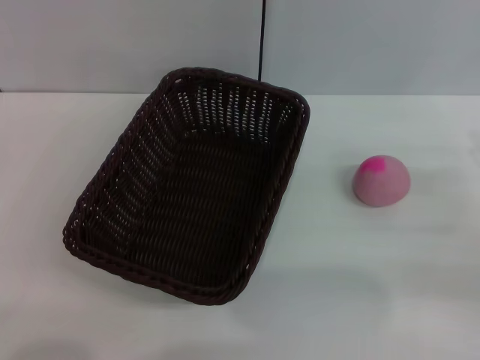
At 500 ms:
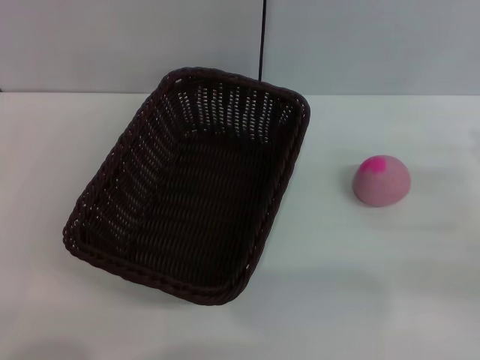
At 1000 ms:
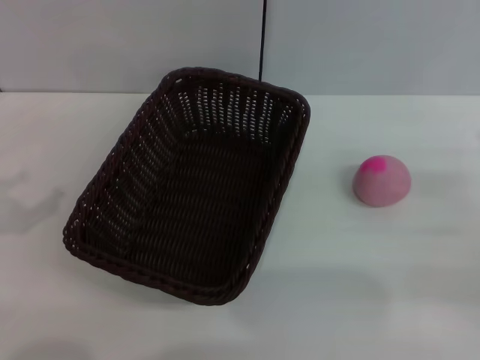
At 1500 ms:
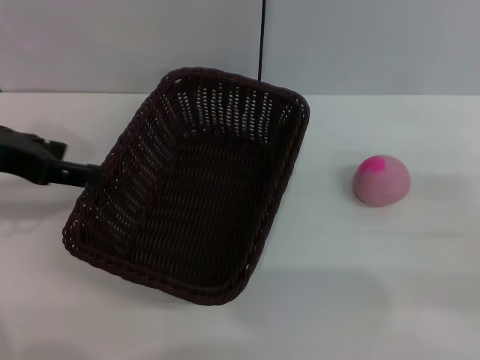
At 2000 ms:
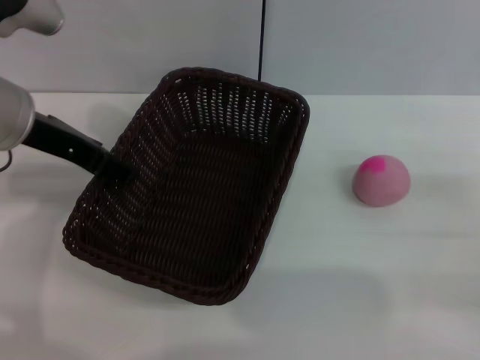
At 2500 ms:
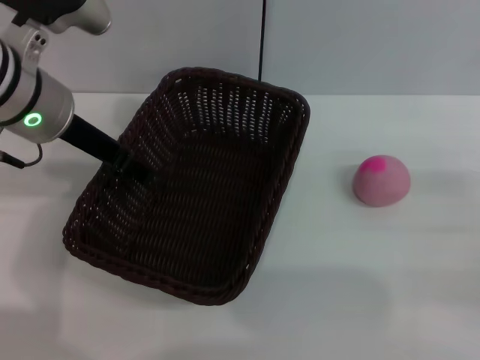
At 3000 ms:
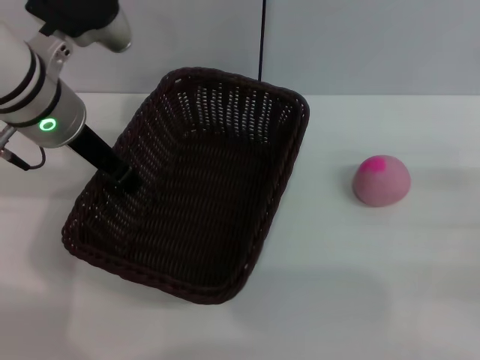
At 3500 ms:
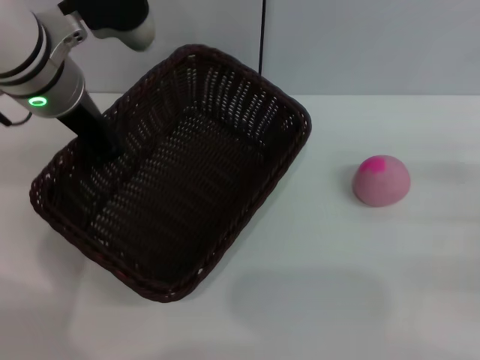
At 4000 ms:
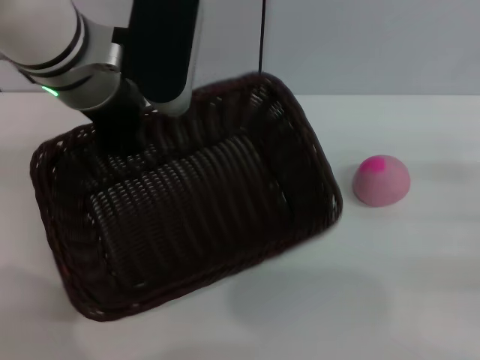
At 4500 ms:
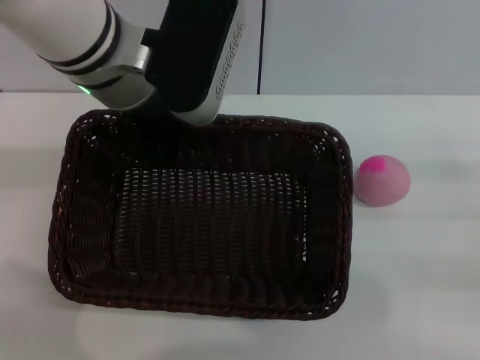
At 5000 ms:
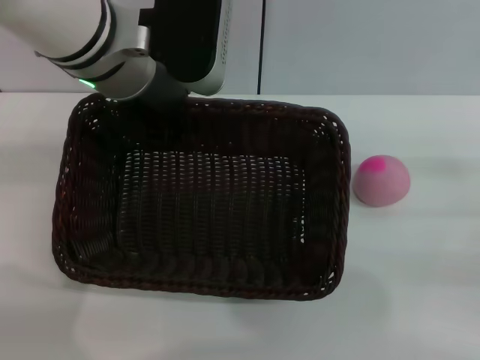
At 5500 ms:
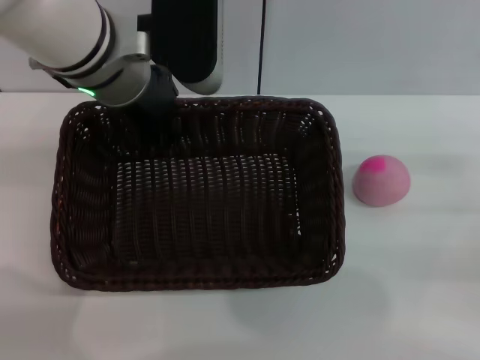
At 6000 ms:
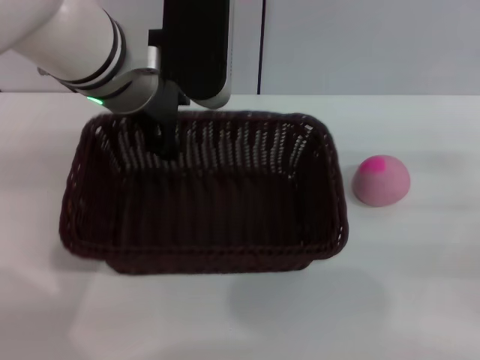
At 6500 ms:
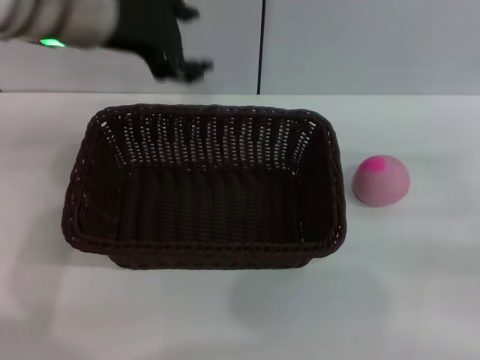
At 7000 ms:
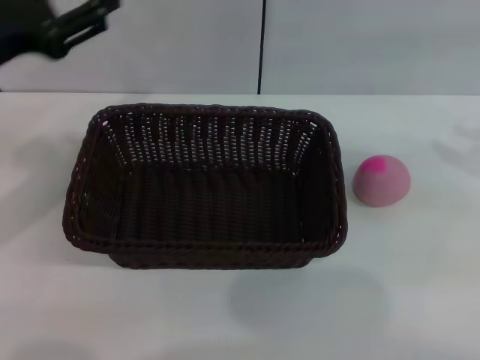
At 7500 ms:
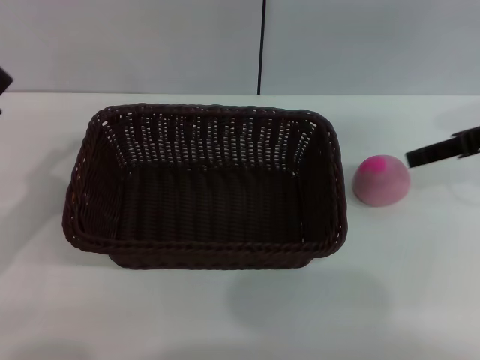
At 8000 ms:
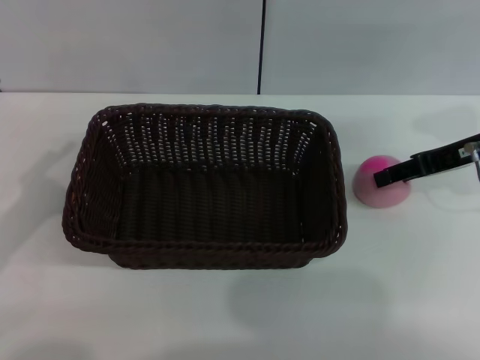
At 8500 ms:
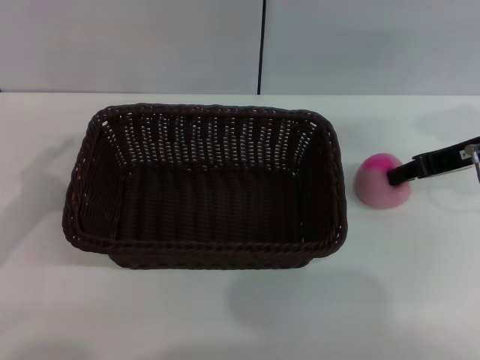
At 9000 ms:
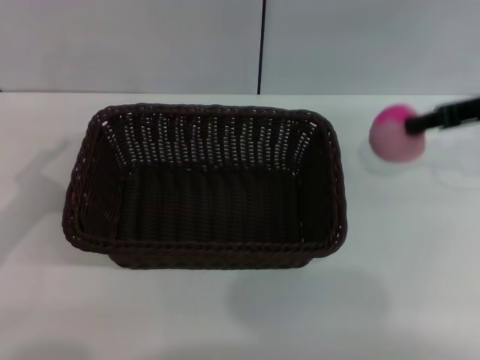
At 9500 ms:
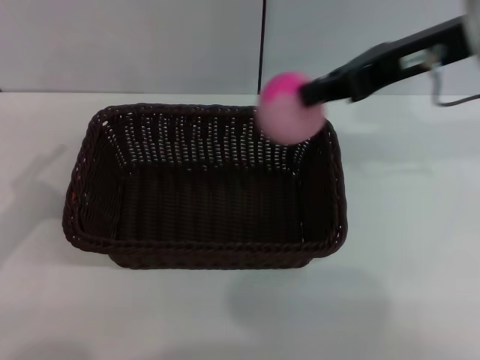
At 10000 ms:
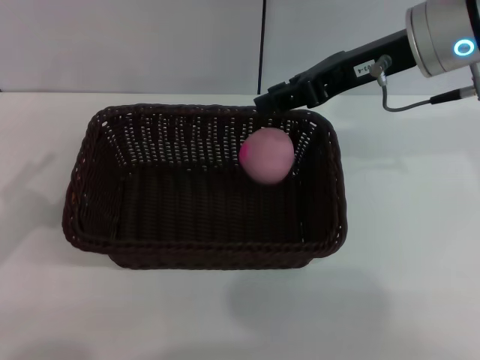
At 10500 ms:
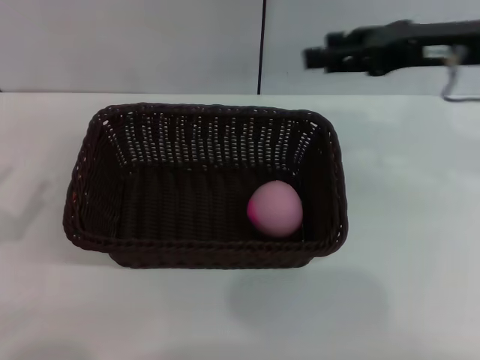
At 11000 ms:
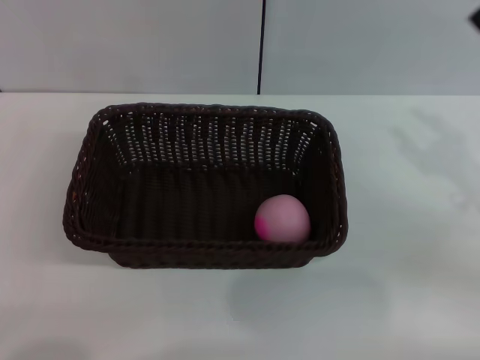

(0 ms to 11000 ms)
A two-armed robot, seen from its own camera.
Step, 0 ms - 3500 ms: Pick up the dark basket with the left gripper.
Step, 4000 ms - 6000 ms: Place the dark basket in the center of view with the right gripper.
Step, 6500 ms - 9000 ms: Pick up the peach with the left gripper.
Step, 9500 ms - 10000 ms: Place the peach into the basket with the left gripper.
0 ms - 2000 ms: The left gripper goes approximately 30 cm forward, upward and to the right.
2000 ms - 3500 ms: The left gripper heads to the right, covering some 5 cm, and closes up.
5500 ms - 7500 ms: The right gripper goes about 15 cm upward, forward and to the left; the left gripper goes about 30 cm to the left, backward and downward, and opens up.
7500 ms - 9000 ms: The right gripper closes.
9000 ms - 11000 ms: The two grippers go some 10 cm backward and downward. The right gripper goes to the left and returns, approximately 10 cm each way, and opens its fingers.

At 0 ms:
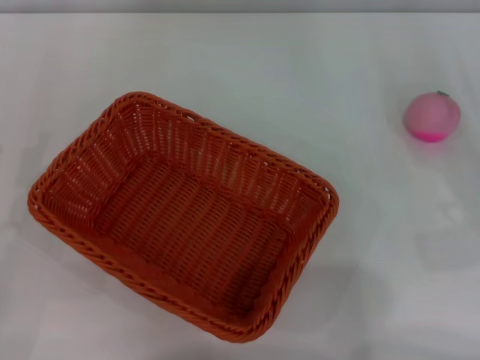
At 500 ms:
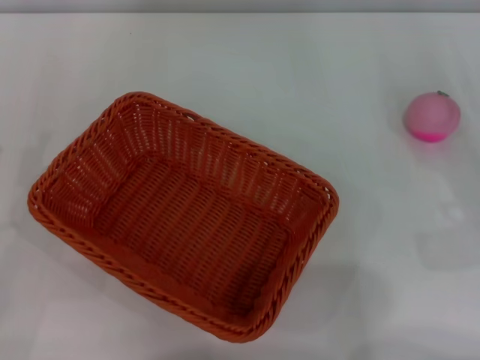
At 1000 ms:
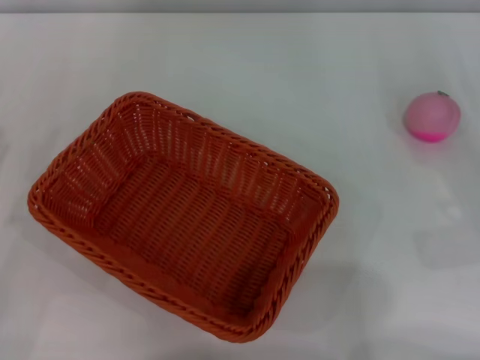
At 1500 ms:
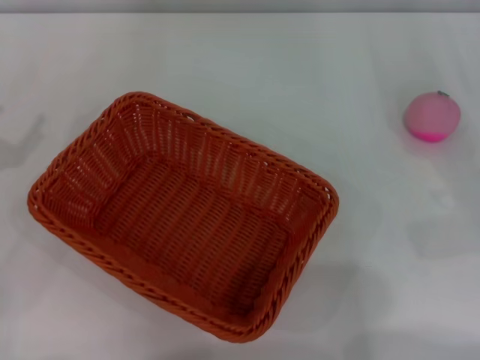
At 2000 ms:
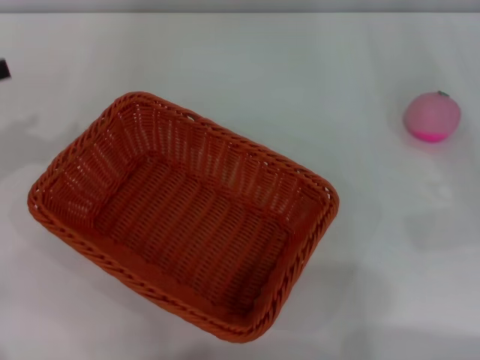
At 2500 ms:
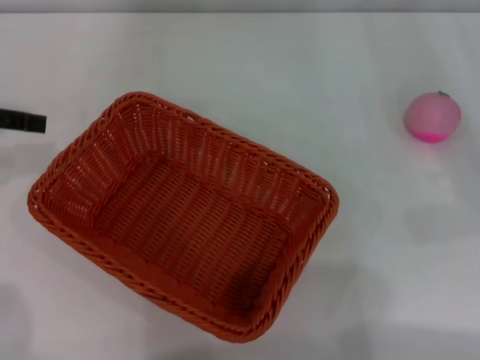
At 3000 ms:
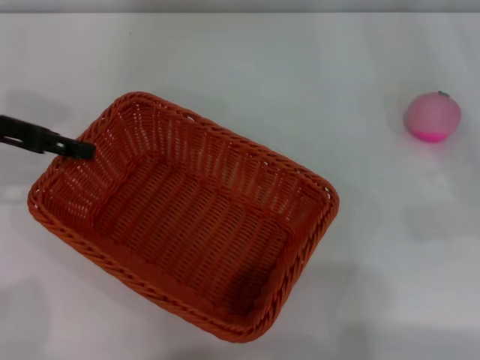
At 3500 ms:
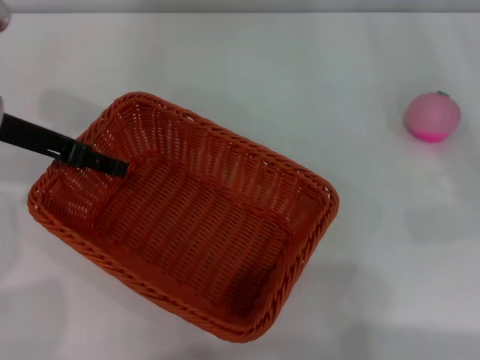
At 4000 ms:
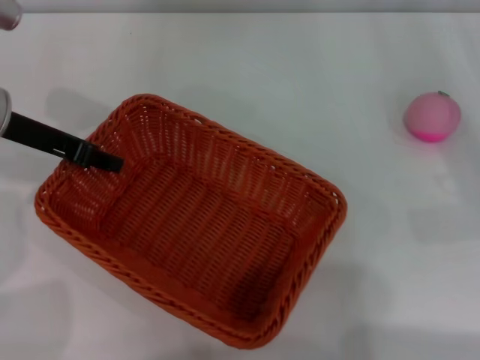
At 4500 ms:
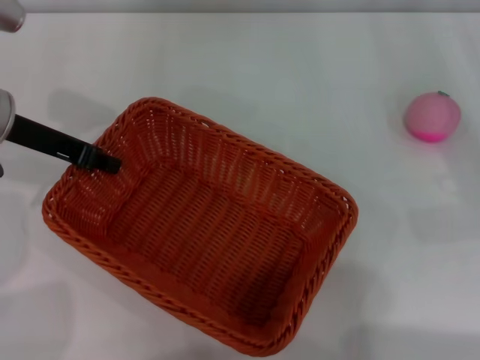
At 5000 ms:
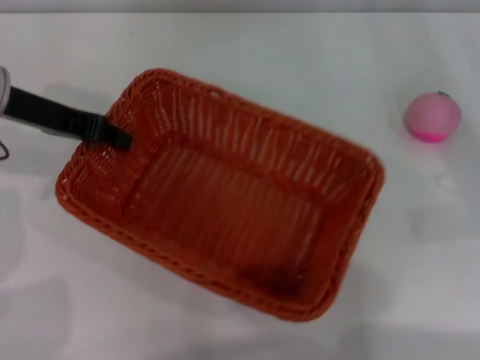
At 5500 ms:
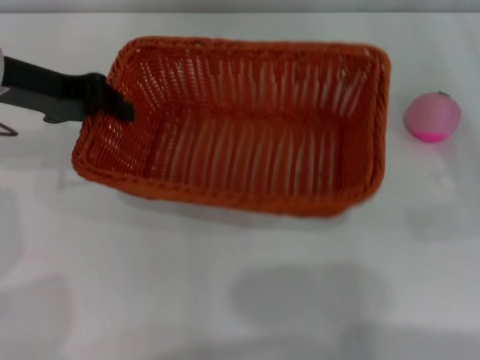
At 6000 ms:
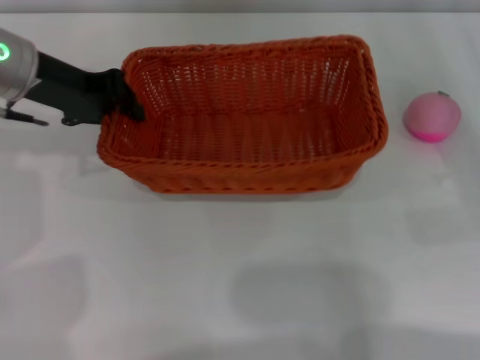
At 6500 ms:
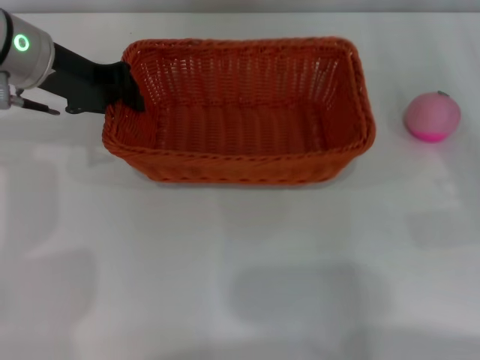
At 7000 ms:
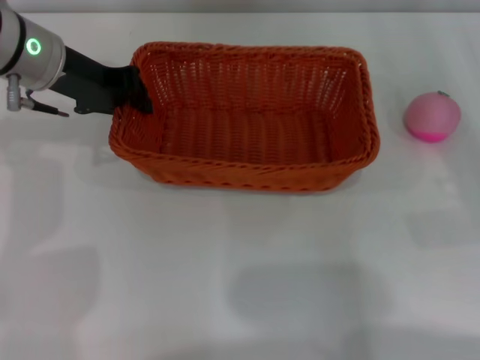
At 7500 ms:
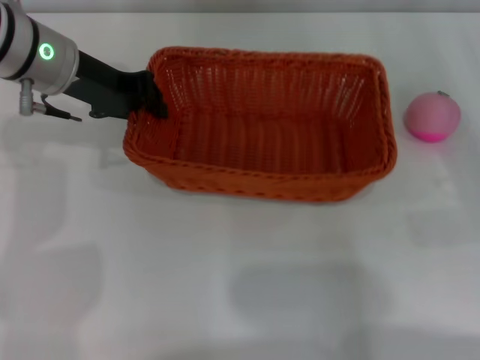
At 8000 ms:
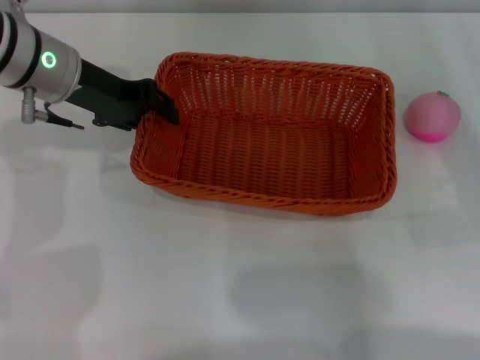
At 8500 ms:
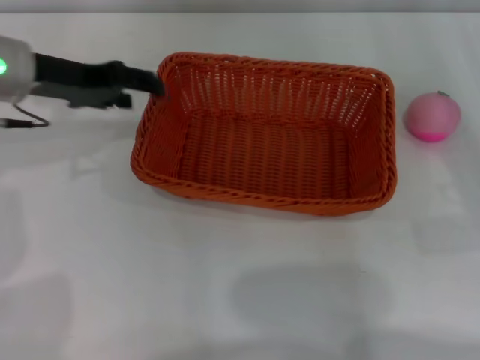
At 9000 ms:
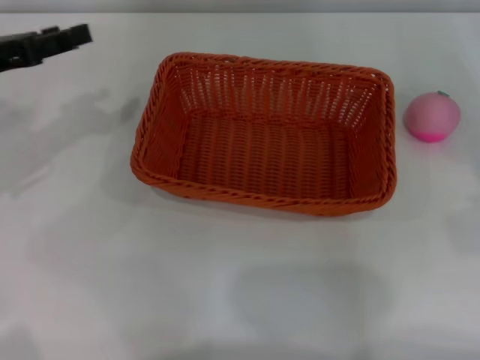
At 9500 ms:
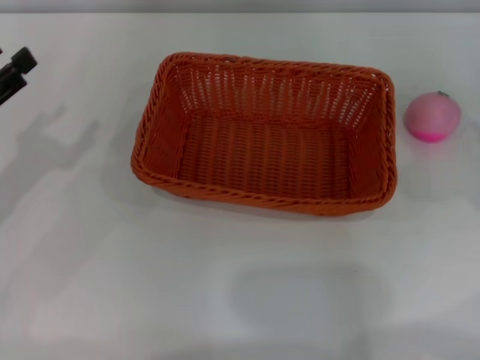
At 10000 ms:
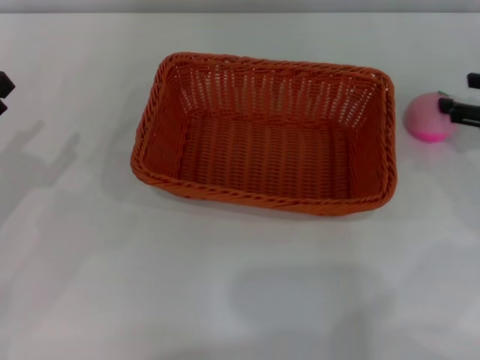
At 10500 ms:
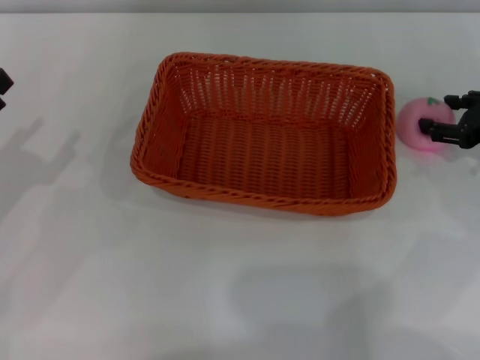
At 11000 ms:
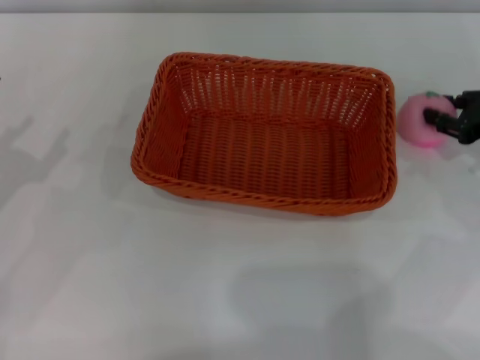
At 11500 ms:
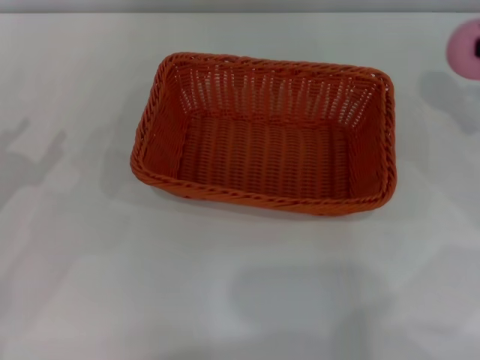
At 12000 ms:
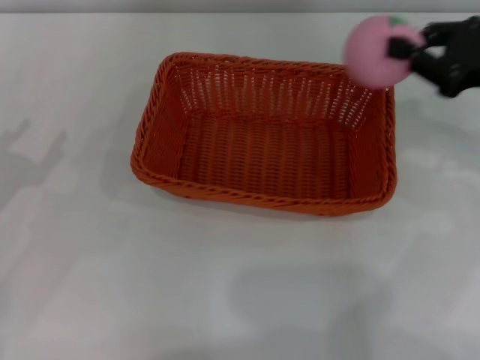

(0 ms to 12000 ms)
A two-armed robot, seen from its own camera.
Step, 0 ms - 5000 ms: Pick up the light basket with the left gripper.
Step, 9000 ms - 11000 ms: Pick up the peach with the left gripper.
2000 ms - 4000 ms: The left gripper moves to the right and forward, roughly 15 cm, and closes up.
4000 ms - 6000 ms: The left gripper closes up.
6000 ms - 8000 ms: There are only small adjustments of the grippers.
8000 ms - 10000 ms: The left gripper goes approximately 25 cm to the left, backward and downward, and opens, while the right gripper goes approximately 10 cm forward.
10000 ms - 12000 ms: The right gripper travels to the left and upward by roughly 10 cm, and closes up.

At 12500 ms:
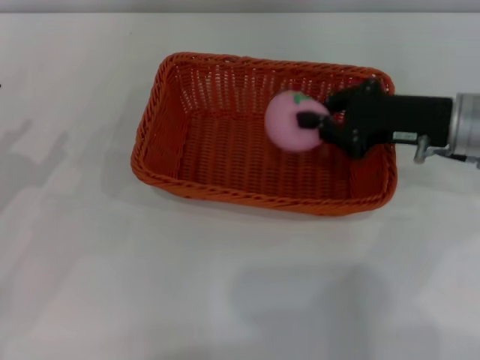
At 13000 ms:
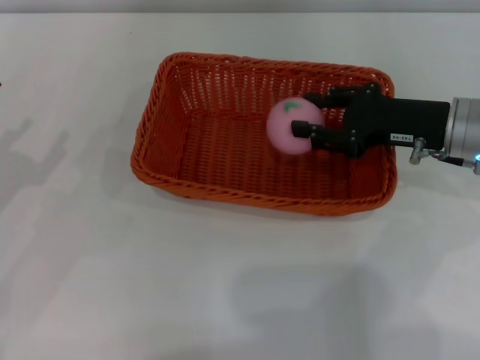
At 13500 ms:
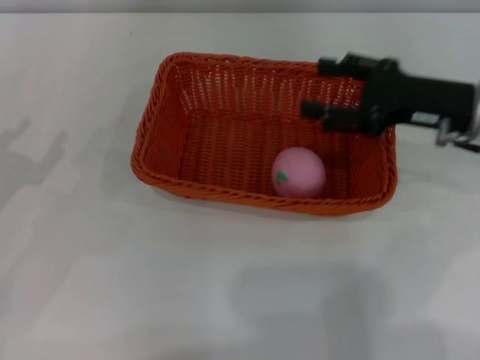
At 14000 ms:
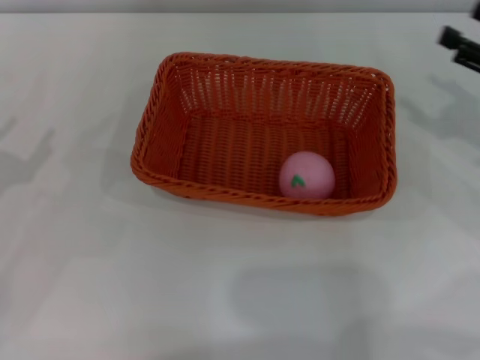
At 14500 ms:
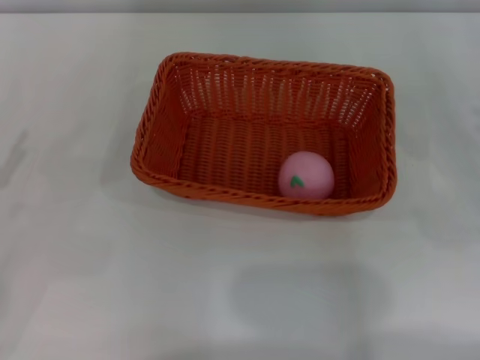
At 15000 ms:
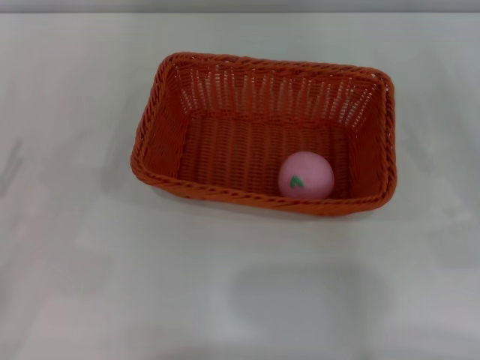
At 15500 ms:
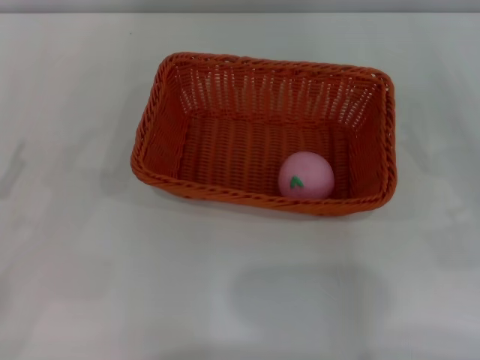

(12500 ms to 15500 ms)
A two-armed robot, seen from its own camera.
12500 ms - 14000 ms: The right gripper is displaced to the right by roughly 10 cm, and opens up.
14000 ms - 15500 ms: The right gripper is displaced backward and downward by about 10 cm.
